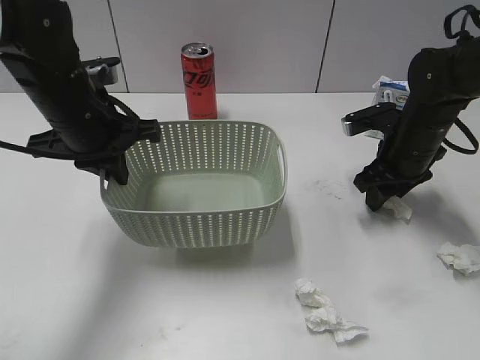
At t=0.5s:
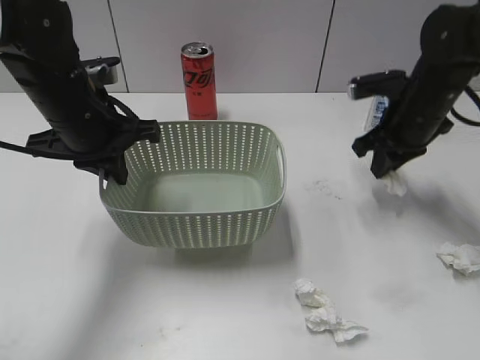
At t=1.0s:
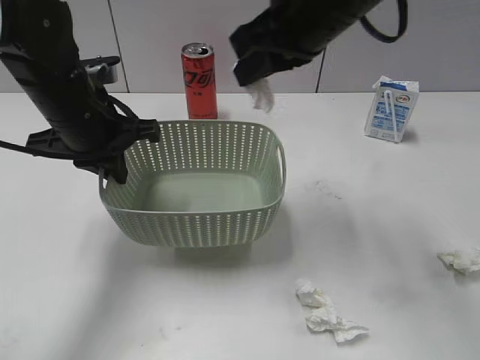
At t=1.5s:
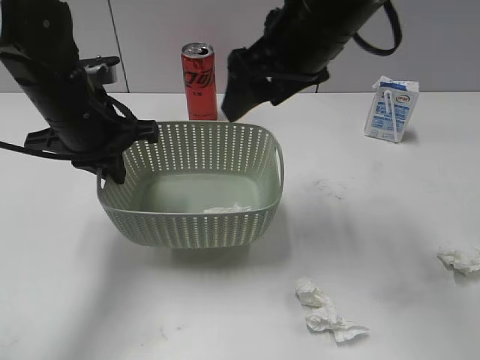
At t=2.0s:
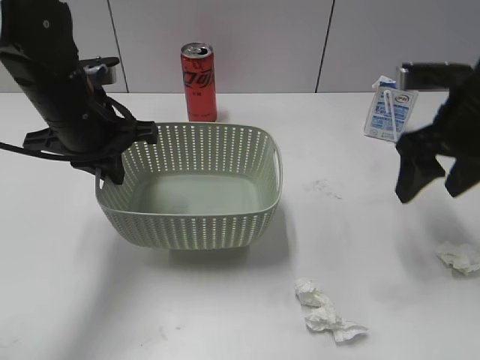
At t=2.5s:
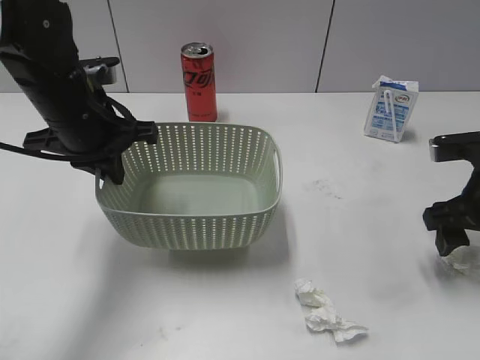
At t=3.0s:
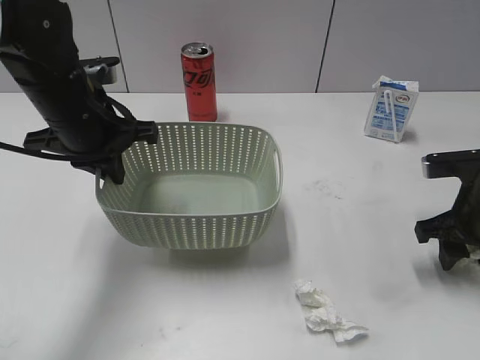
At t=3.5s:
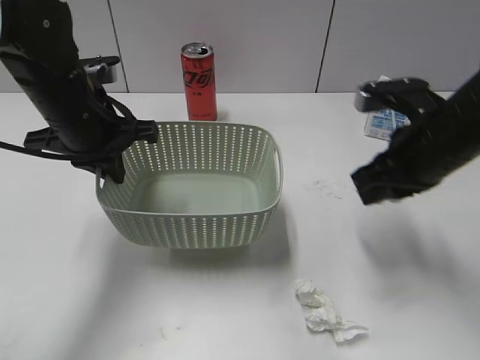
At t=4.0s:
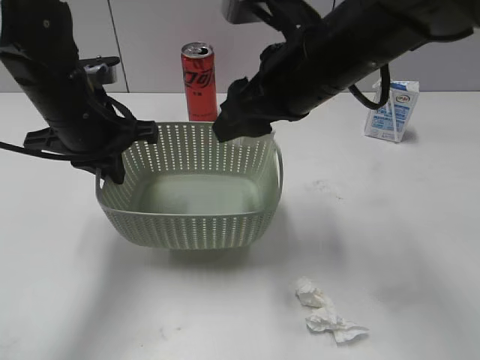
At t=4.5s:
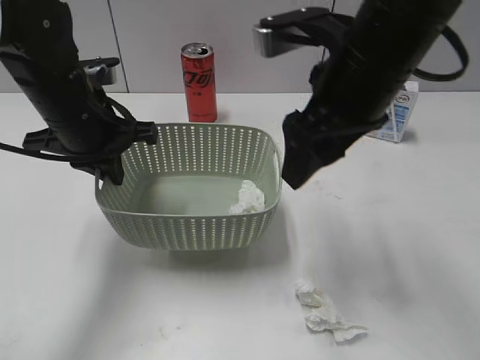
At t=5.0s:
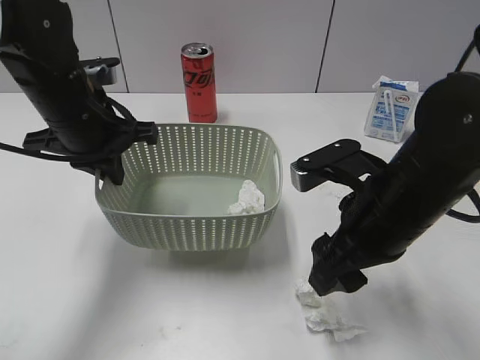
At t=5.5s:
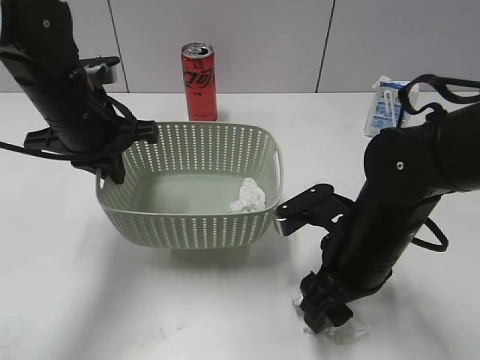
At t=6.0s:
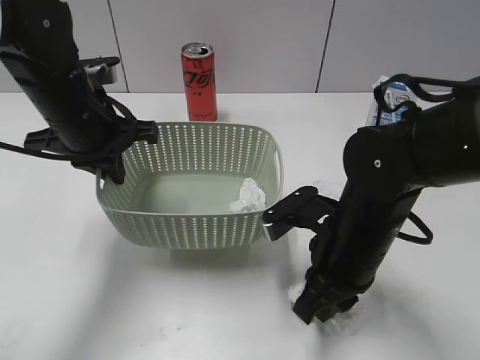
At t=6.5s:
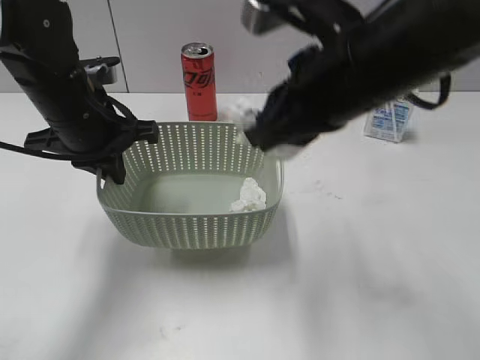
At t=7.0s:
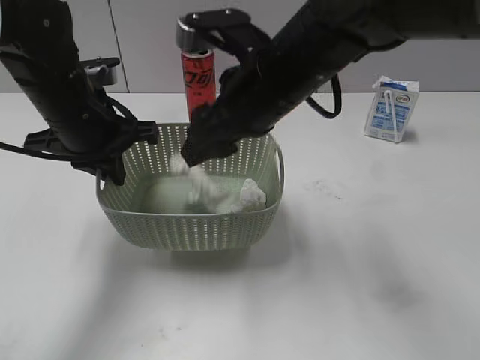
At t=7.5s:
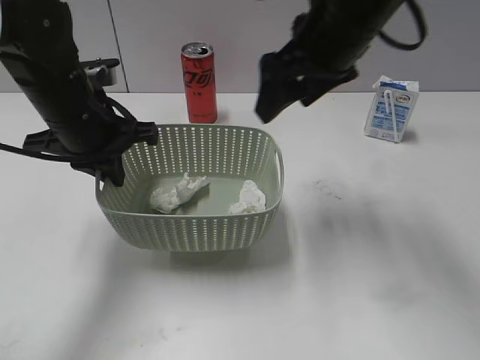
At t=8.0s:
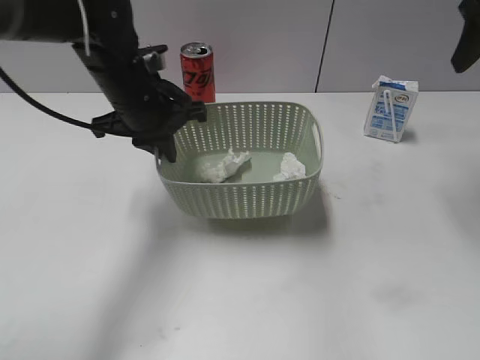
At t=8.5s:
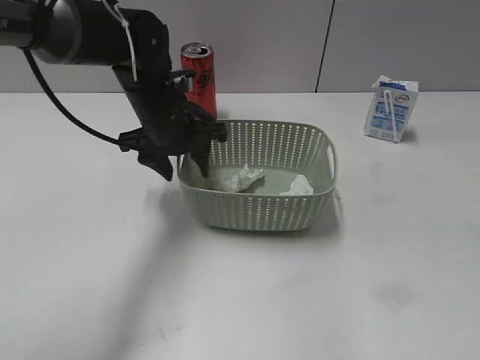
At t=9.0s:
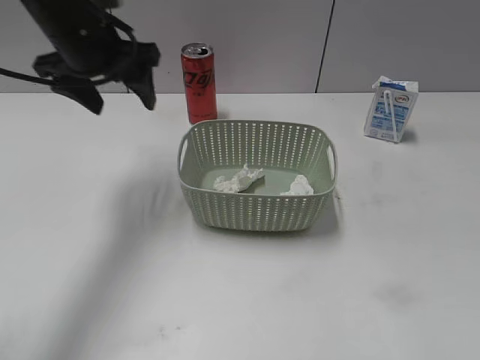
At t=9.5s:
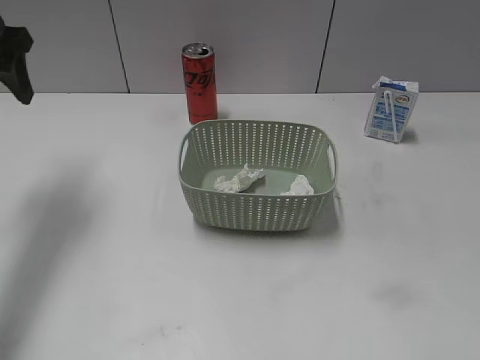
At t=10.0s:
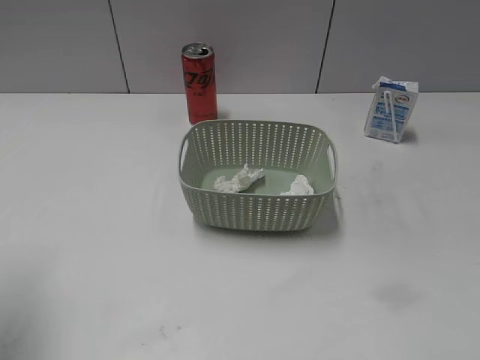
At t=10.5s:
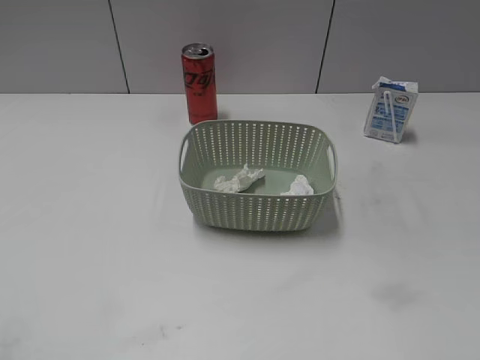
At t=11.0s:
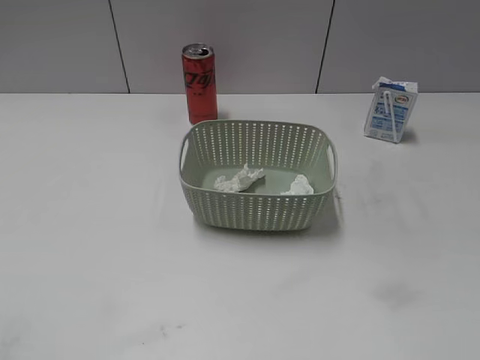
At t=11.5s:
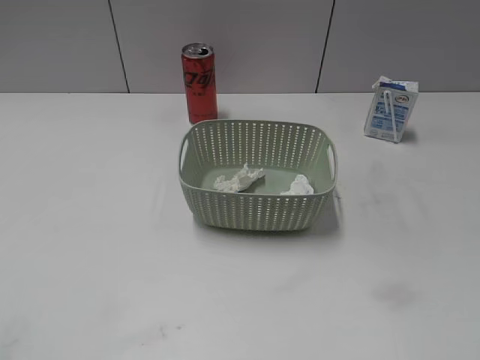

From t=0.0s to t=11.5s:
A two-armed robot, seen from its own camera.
Step, from t=2.0s to t=3.0s: Grasp the waste paper with right gripper.
Step, from t=3.5s to t=4.0s: Place the waste paper in the basket with right gripper.
Step, from t=4.5s to t=5.5s: Grasp the waste paper with right gripper.
Step, from t=6.0s to t=7.0s: Place the waste paper in the basket with right gripper.
Step, from t=7.5s to t=8.5s: Place the basket on the table with left gripper.
From t=0.0s to t=2.0s: The right gripper heads upward and backward, covering roughly 15 cm, and closes and opens again.
From t=2.0s to t=4.0s: The right gripper is displaced to the left by roughly 15 cm, and closes up.
From t=4.0s to t=6.0s: The right gripper travels downward and backward by approximately 15 cm, and closes its fingers.
From t=6.0s to t=7.5s: The right gripper shifts roughly 20 cm upward and forward, and opens its fingers.
From t=7.5s to t=9.5s: The left gripper is displaced to the left, upward and forward by approximately 15 cm, and opens its fingers; the right gripper moves backward and to the right, roughly 35 cm.
From t=9.5s to t=11.5s: The left gripper shifts approximately 40 cm backward.
